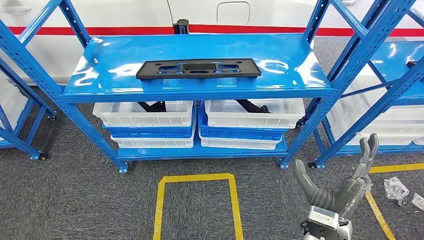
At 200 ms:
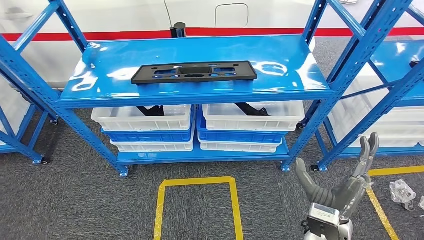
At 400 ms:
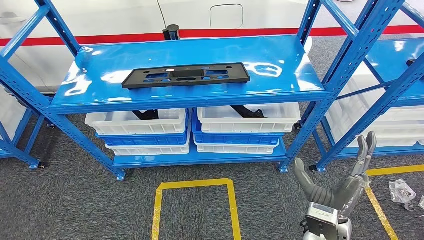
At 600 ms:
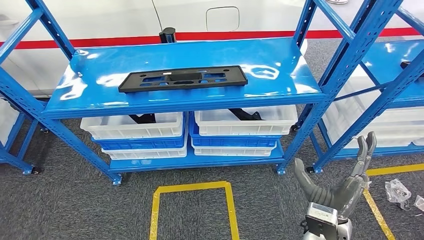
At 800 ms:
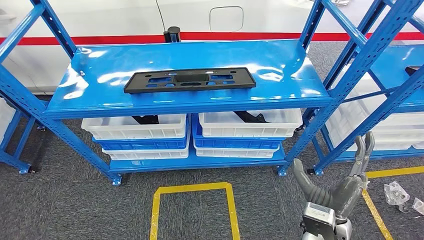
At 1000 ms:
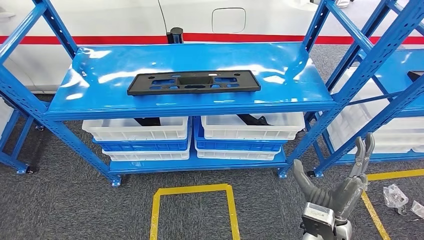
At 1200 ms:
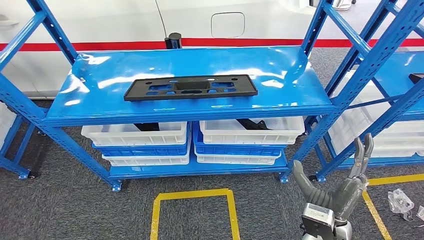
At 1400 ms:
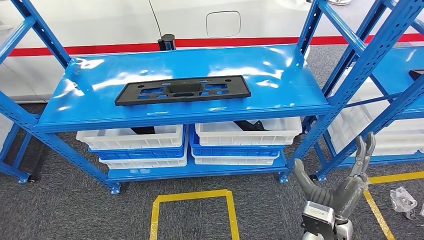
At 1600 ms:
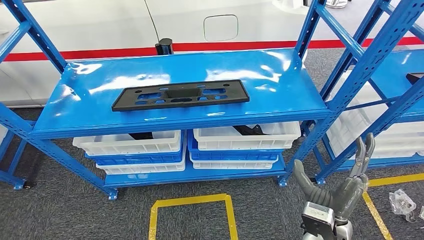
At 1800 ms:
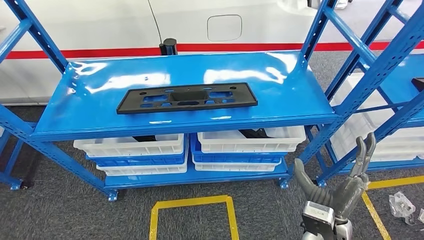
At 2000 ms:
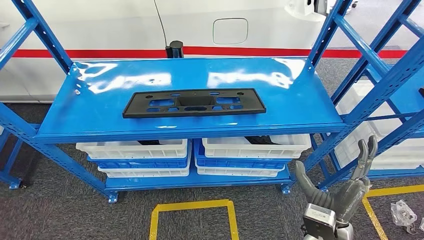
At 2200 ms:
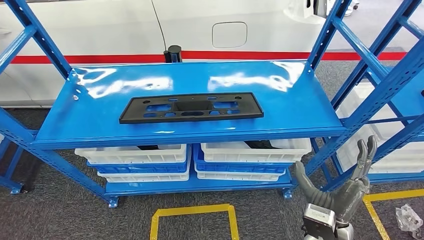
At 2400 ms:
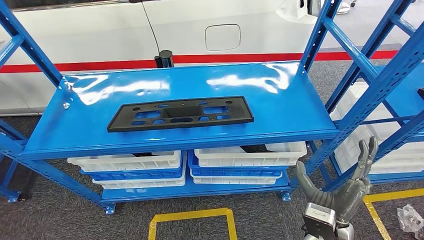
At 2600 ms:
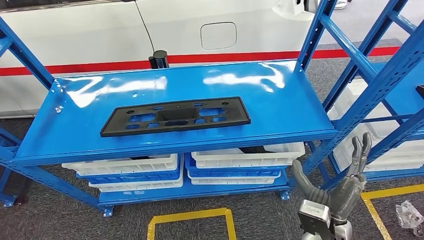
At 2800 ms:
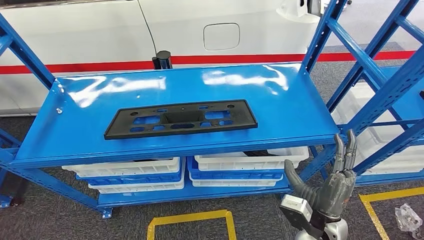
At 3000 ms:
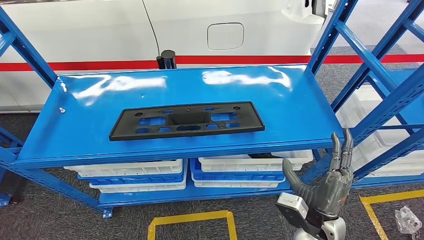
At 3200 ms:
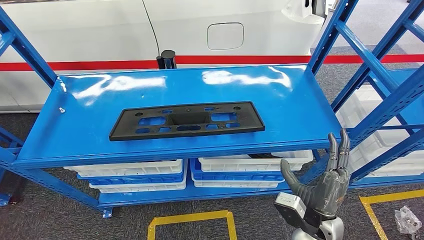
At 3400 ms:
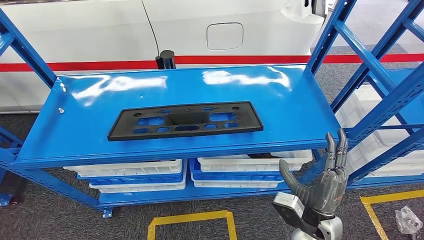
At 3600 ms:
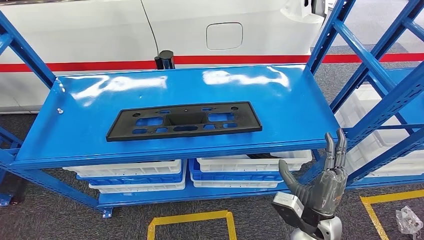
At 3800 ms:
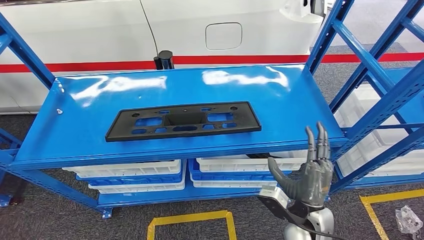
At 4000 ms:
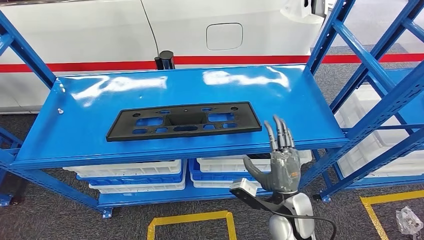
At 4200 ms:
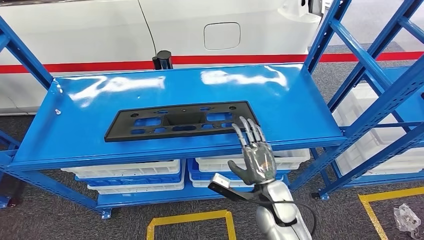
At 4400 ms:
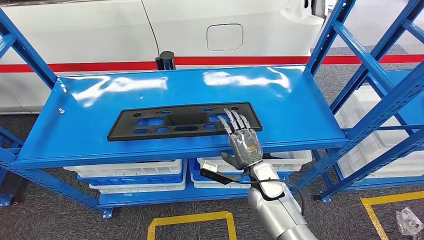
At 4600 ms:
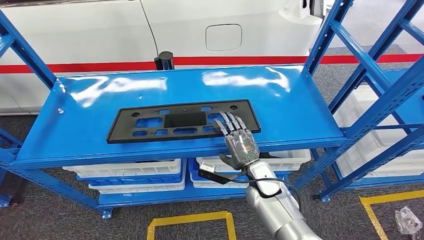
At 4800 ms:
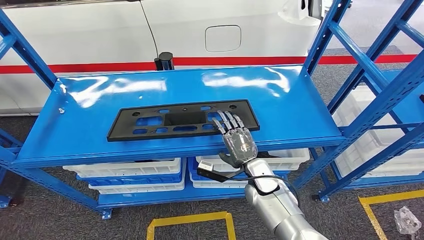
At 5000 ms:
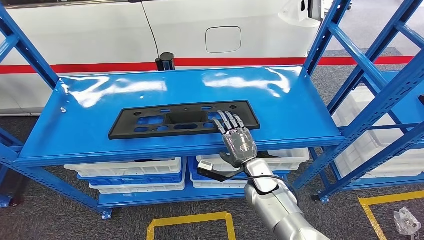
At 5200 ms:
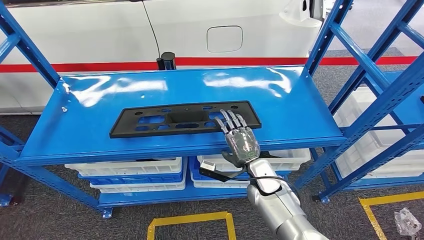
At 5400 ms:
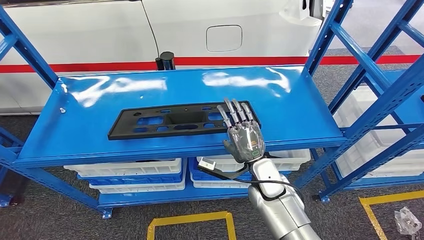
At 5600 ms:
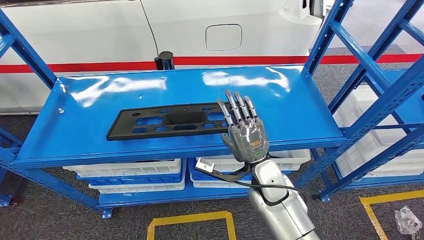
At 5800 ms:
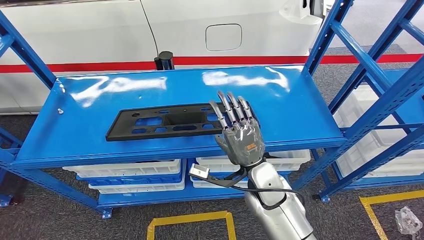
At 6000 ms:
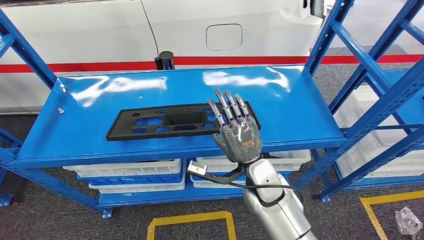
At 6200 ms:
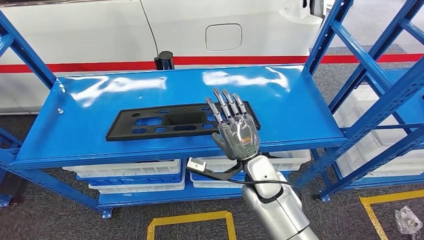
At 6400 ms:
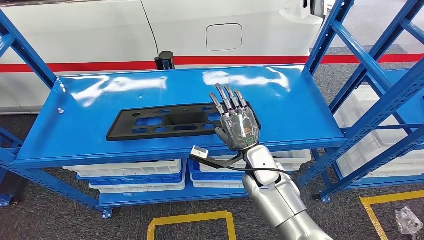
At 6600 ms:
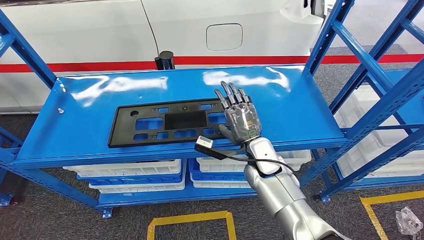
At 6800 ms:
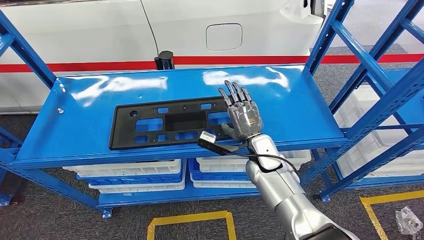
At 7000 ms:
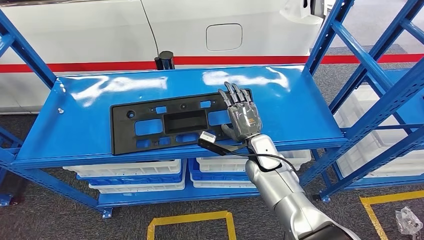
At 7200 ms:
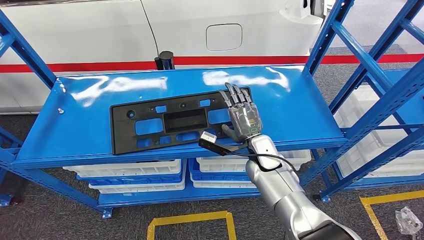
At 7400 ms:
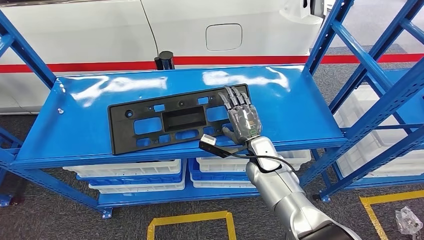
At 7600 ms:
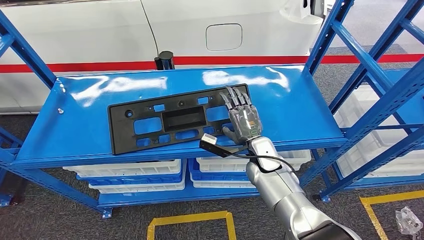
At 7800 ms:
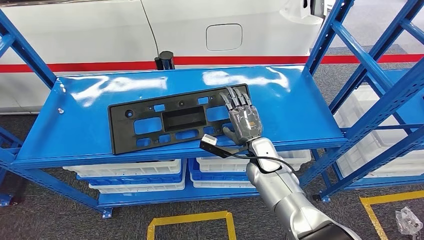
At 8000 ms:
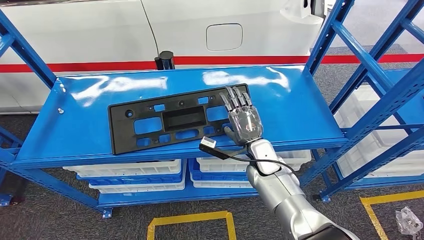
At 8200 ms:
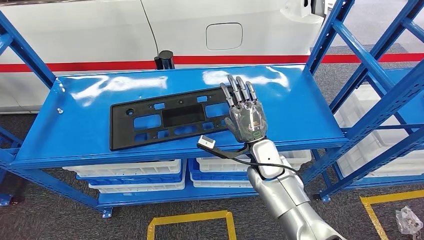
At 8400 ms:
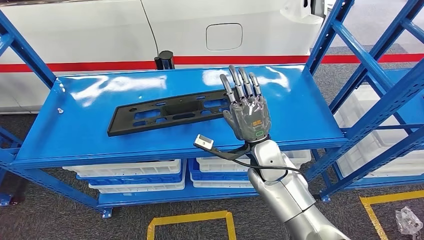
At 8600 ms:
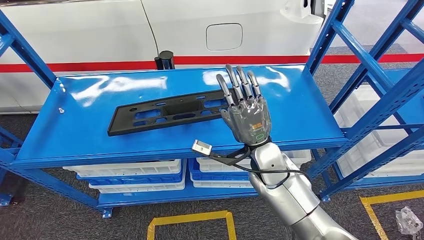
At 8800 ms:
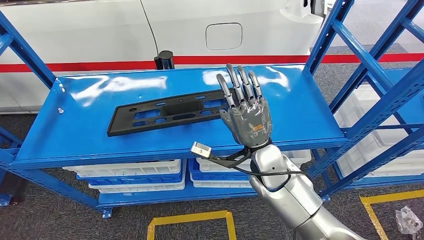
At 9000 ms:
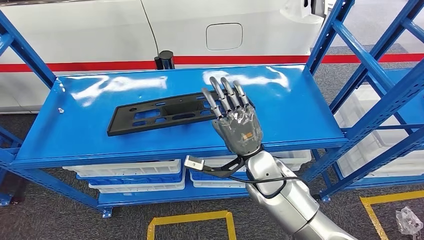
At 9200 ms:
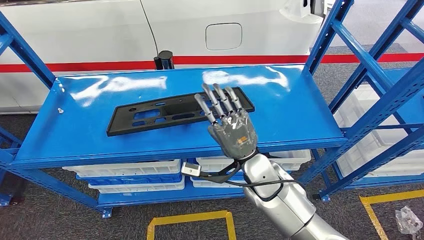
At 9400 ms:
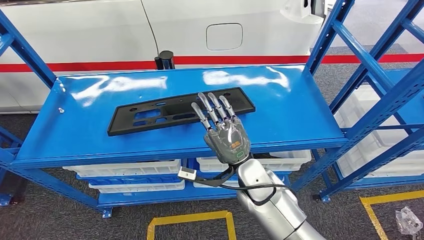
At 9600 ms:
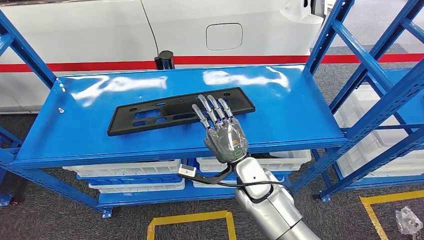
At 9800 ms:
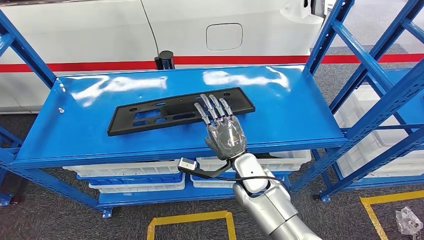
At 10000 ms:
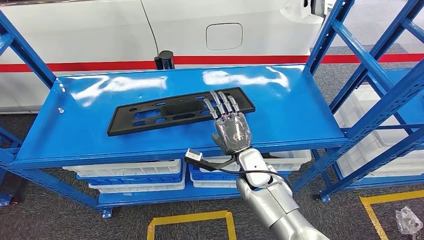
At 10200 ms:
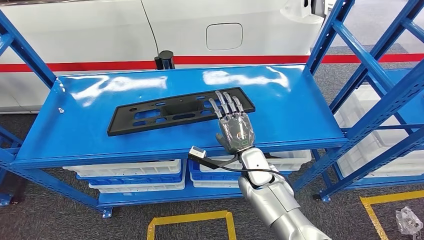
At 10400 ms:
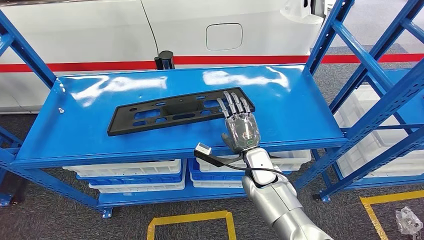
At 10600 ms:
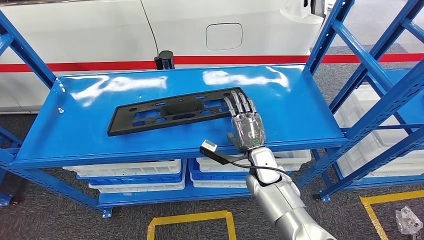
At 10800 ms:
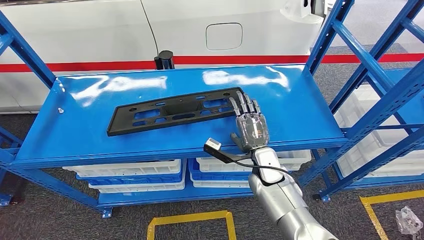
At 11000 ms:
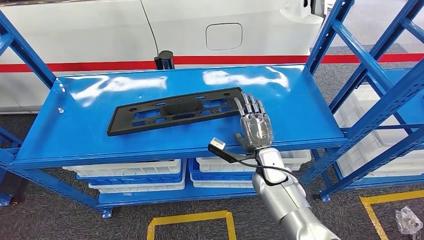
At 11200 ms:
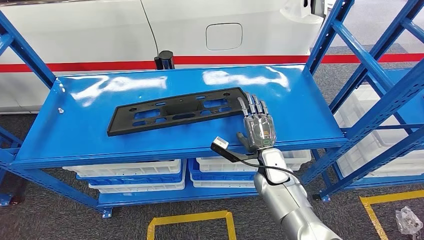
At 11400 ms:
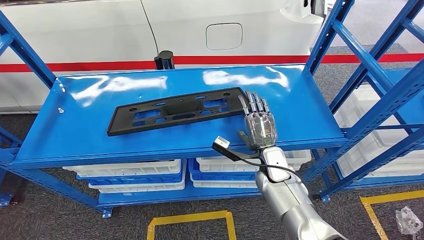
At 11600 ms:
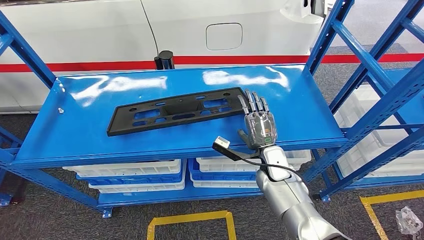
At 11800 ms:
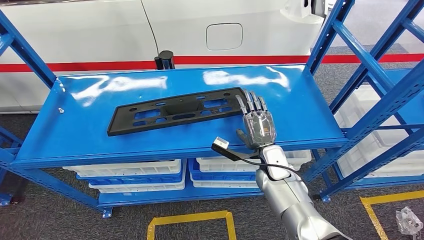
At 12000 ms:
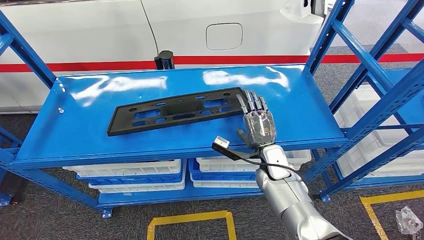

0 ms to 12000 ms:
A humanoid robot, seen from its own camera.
3000 ms to 4400 ms: The right hand travels forward and to the left by roughly 15 cm.
4400 ms to 6000 ms: The right hand goes approximately 5 cm upward.
6000 ms to 7600 ms: The right hand shifts approximately 10 cm forward.
7600 ms to 9000 ms: The right hand goes about 10 cm backward and upward.
9000 ms to 10400 ms: The right hand heads downward, covering roughly 5 cm.
10400 ms to 12000 ms: The right hand changes place by roughly 5 cm.

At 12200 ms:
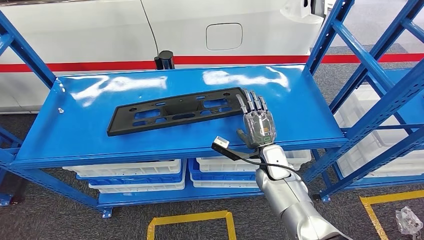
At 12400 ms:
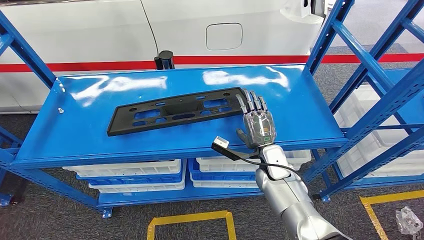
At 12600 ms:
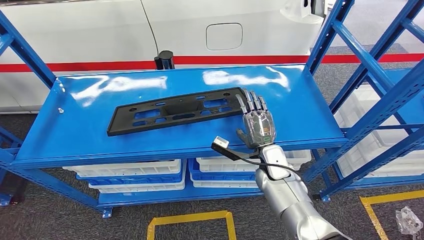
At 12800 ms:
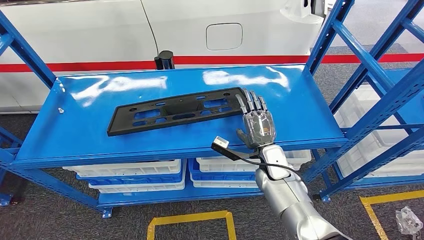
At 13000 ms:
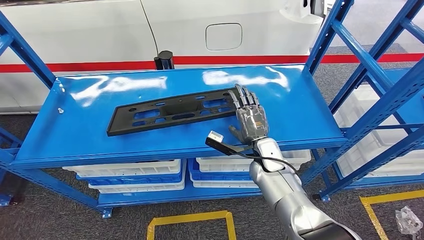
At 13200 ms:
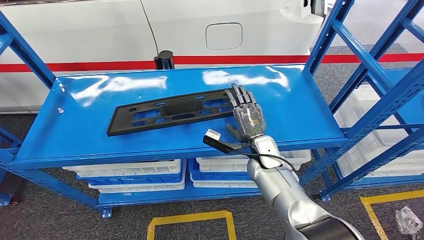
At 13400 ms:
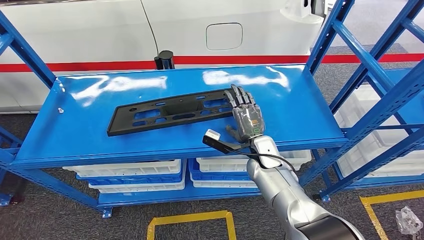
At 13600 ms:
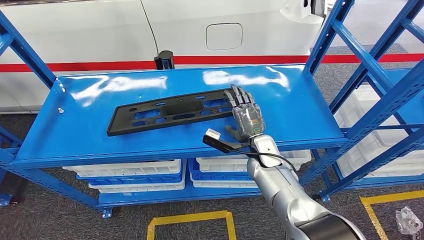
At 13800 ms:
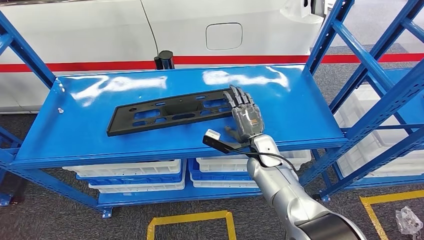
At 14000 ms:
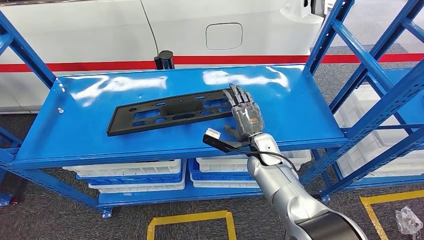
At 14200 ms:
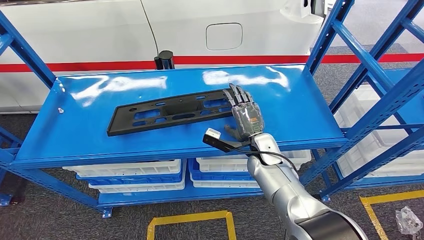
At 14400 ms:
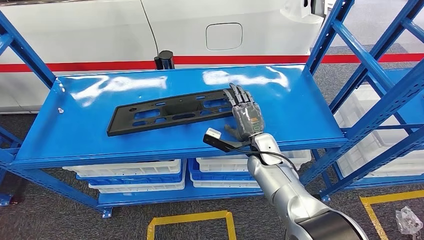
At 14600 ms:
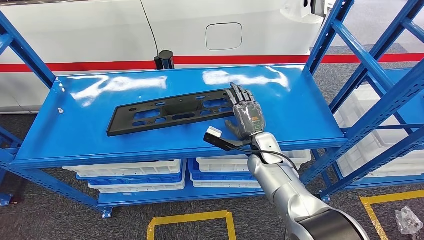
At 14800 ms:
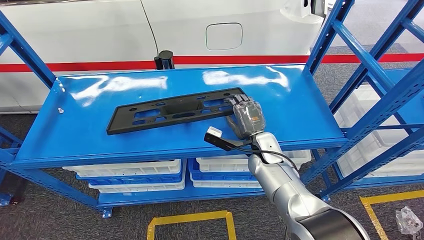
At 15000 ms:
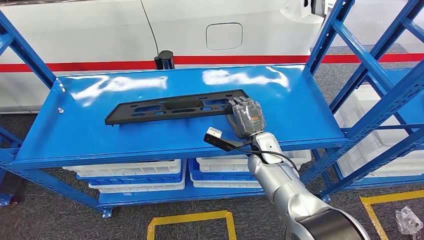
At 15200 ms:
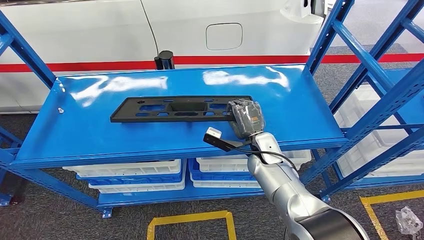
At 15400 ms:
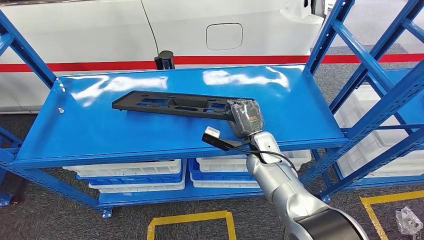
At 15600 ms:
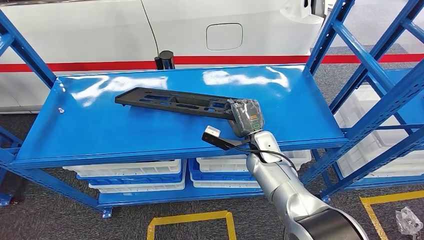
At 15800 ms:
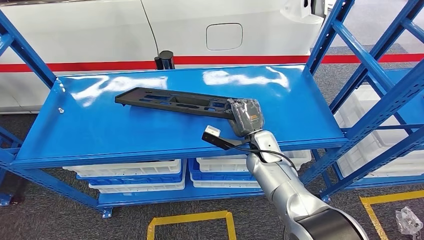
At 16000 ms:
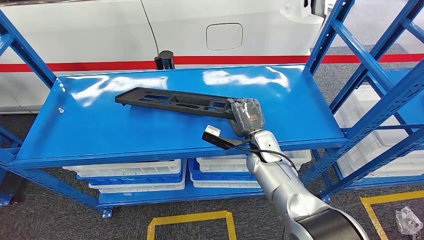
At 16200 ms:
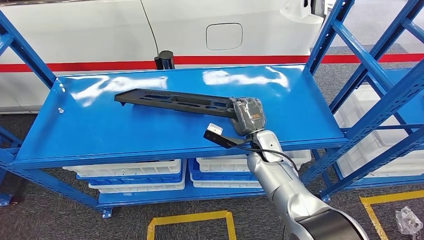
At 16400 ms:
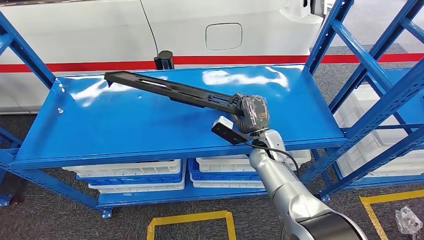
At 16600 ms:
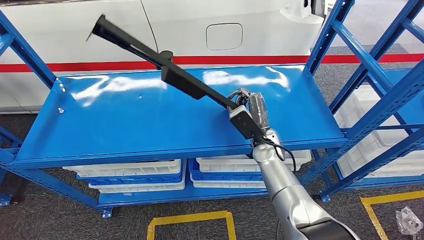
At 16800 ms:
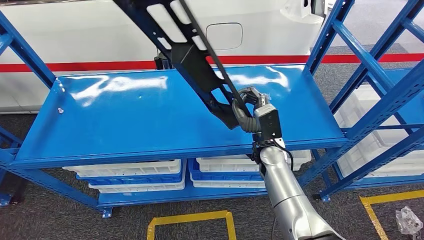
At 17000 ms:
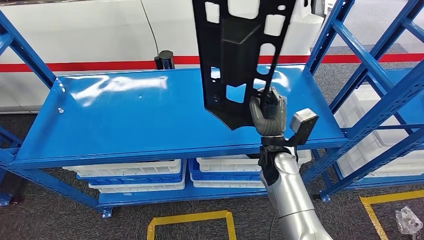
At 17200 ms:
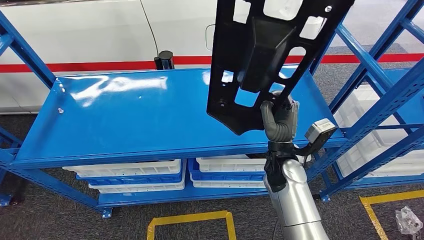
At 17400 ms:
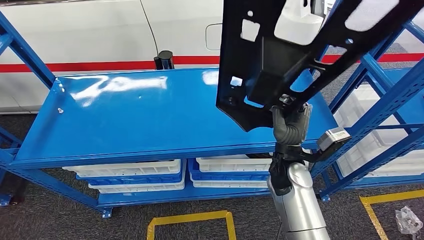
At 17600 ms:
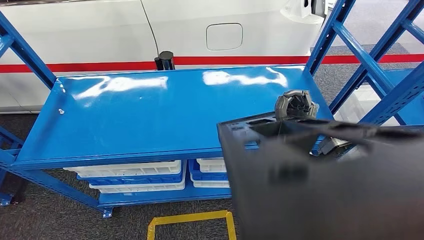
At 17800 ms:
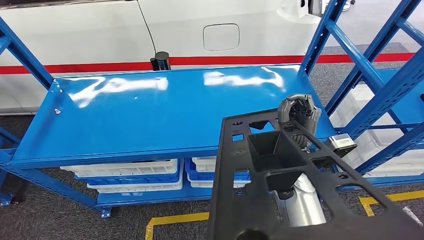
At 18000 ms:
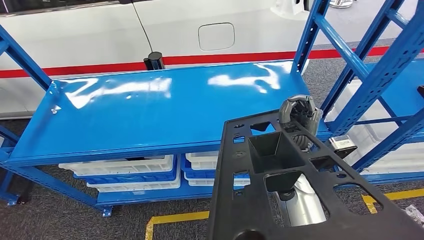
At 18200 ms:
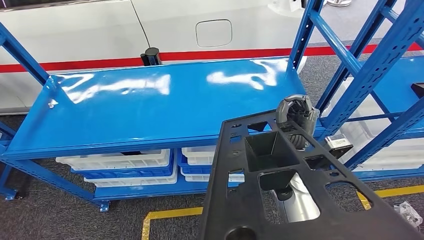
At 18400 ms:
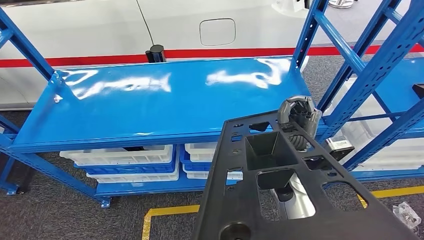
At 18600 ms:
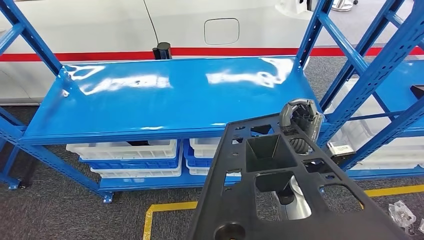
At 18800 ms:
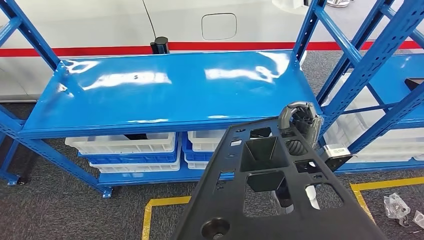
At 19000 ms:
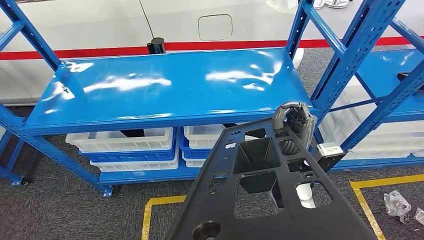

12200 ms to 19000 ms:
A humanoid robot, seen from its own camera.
12200 ms to 13600 ms: The hands move only a little.
13600 ms to 15000 ms: Neither hand changes place.
15000 ms to 16200 ms: The two hands keep their place.
